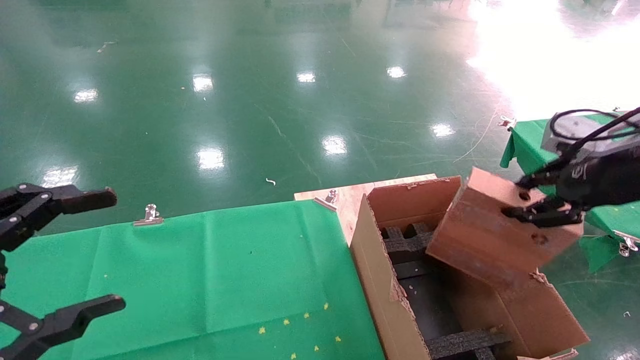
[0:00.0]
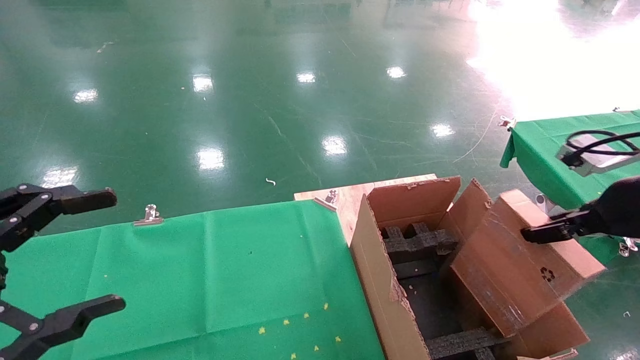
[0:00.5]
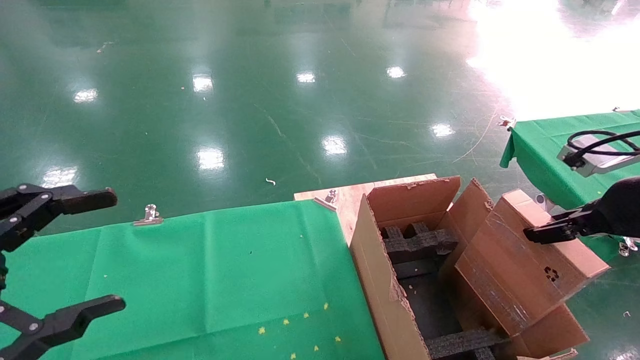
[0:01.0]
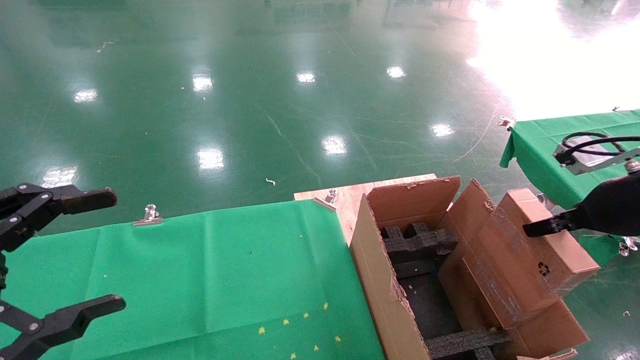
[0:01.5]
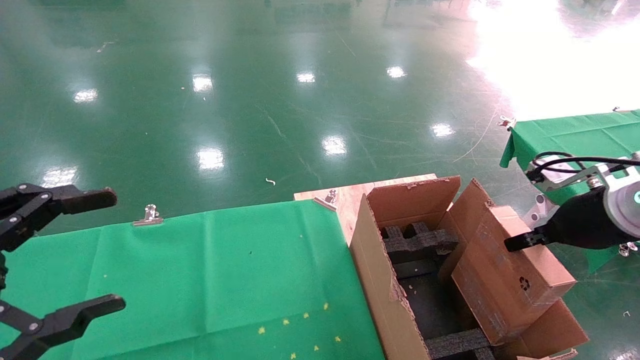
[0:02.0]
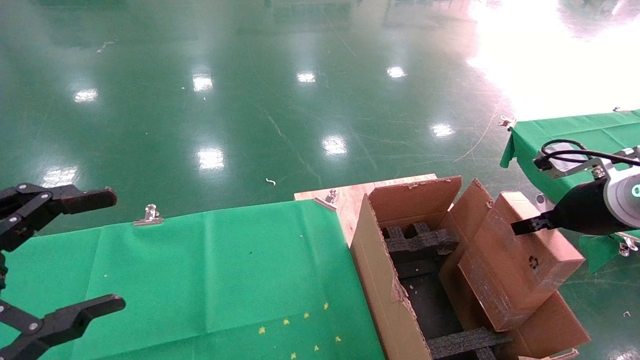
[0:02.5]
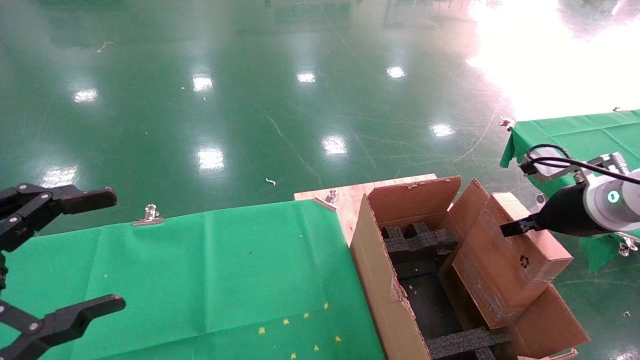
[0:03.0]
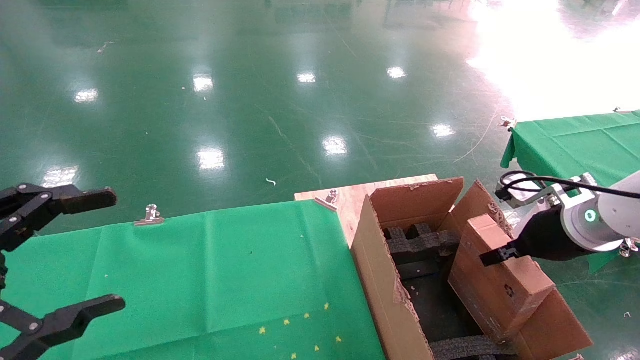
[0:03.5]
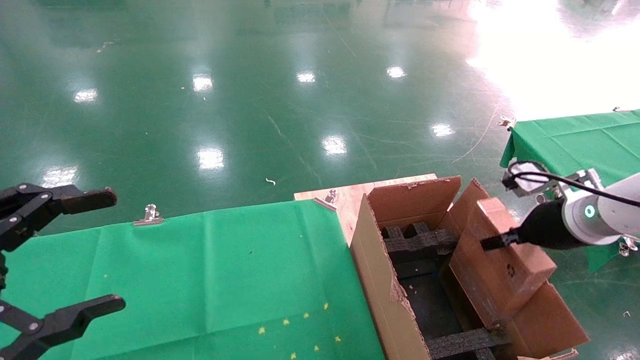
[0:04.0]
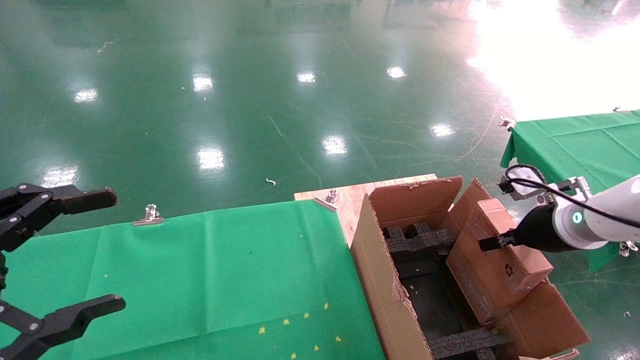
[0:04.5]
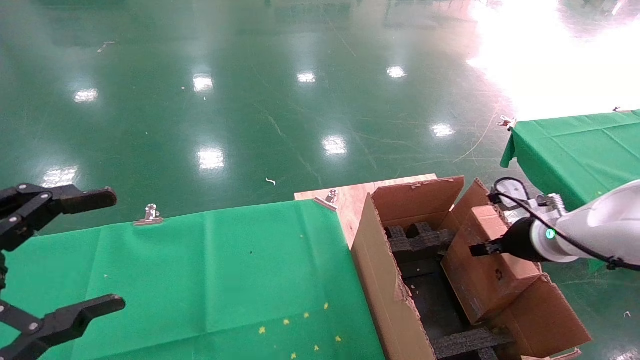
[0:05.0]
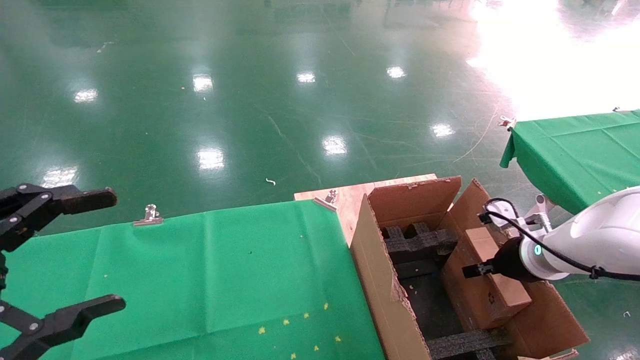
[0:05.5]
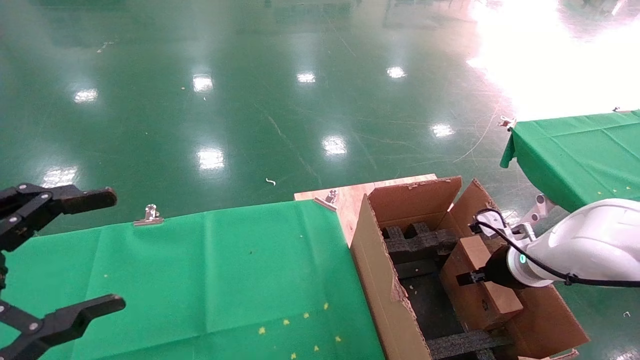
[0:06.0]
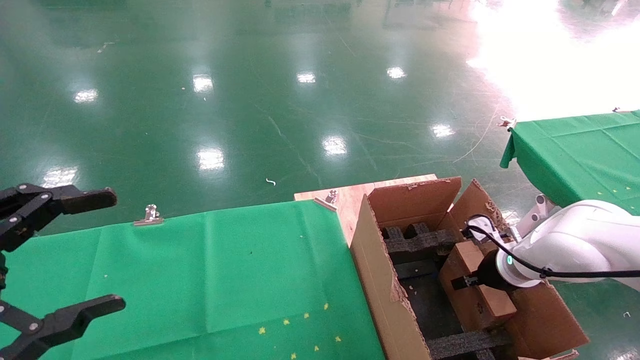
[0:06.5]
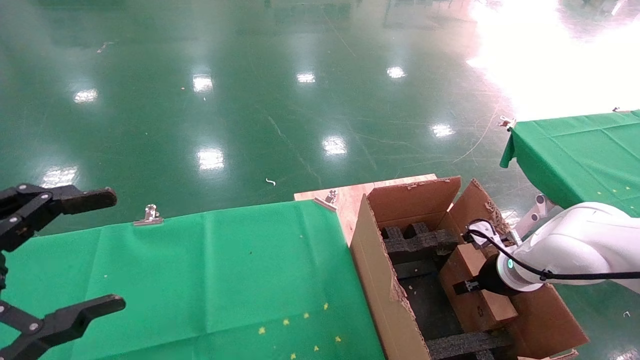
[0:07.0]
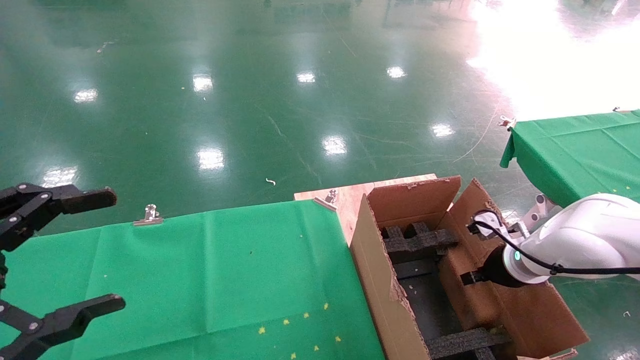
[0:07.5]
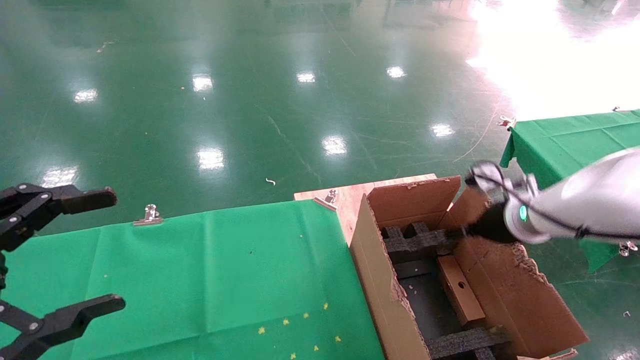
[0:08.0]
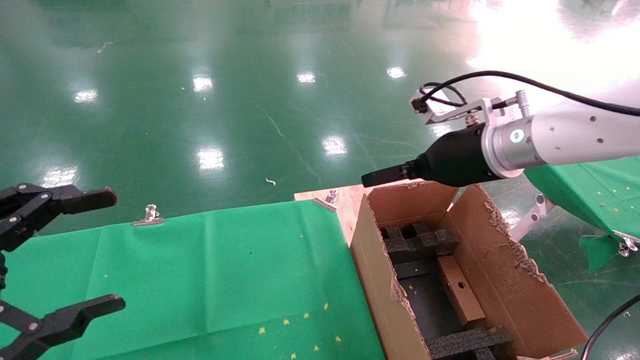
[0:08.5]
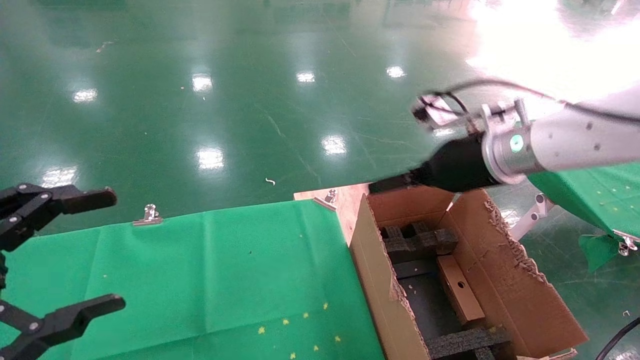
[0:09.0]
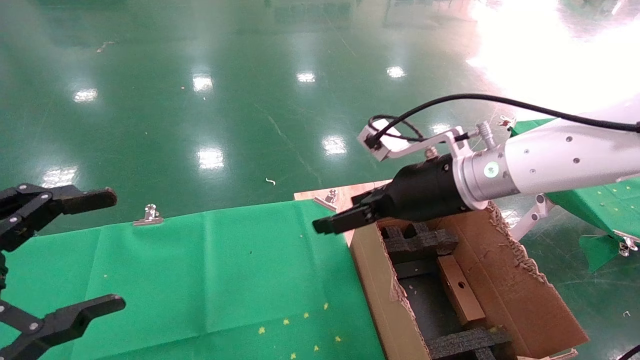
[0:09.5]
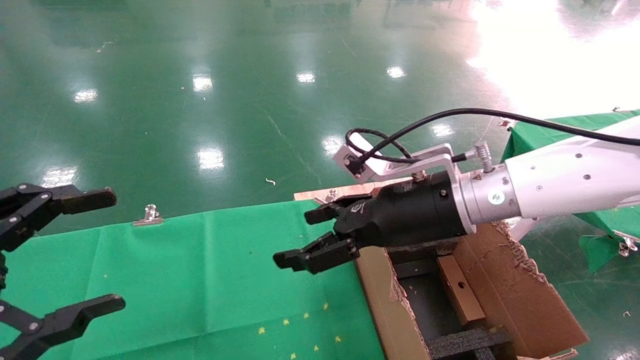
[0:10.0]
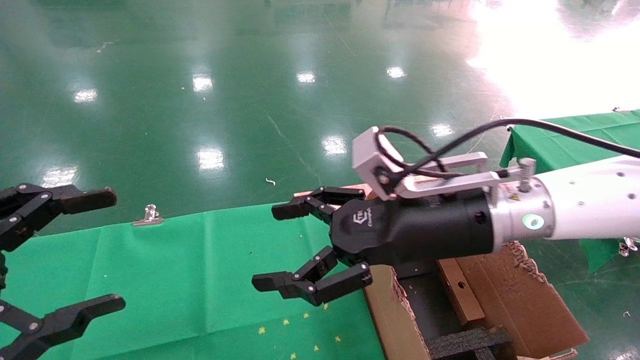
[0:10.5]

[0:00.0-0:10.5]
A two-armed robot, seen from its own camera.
Task of the whole recording: using a robotic arm to pick up a cardboard box and palace it the carton.
Step, 0:00.0 to 0:07.5: Place the mouse and the power cord paper box into the container.
0:00.0 to 0:02.0: The right gripper travels downward by about 10 cm.
0:02.0 to 0:04.0: The right gripper changes place by about 5 cm.
0:04.0 to 0:06.5: The right gripper is displaced downward and forward by some 15 cm.
0:06.5 to 0:08.5: The right gripper travels upward and to the left by roughly 25 cm, and opens.
0:08.5 to 0:10.5: The right gripper travels to the left and backward by approximately 10 cm.
